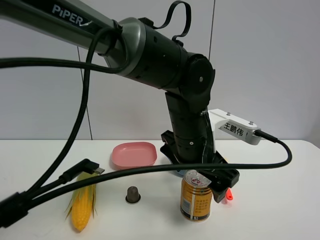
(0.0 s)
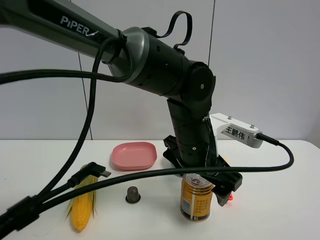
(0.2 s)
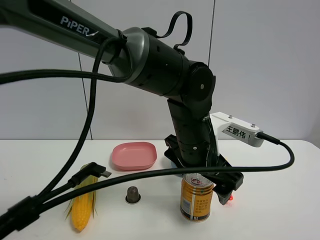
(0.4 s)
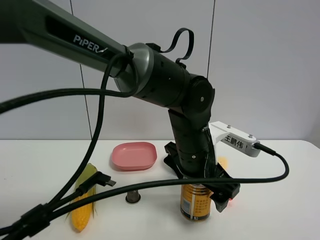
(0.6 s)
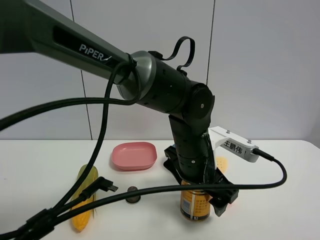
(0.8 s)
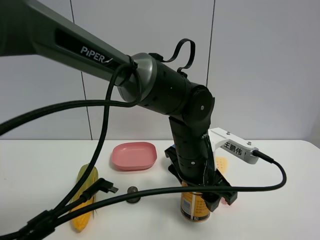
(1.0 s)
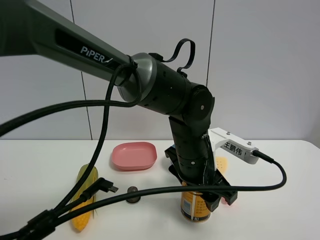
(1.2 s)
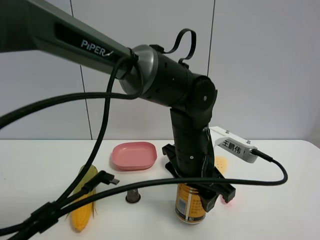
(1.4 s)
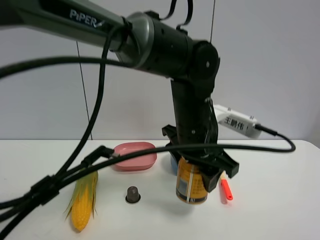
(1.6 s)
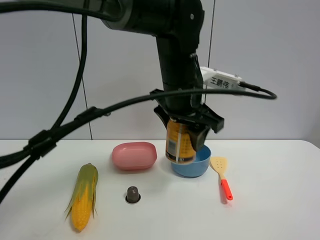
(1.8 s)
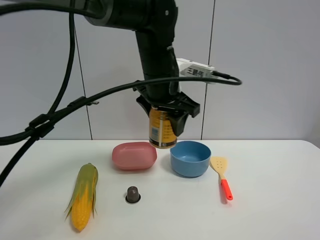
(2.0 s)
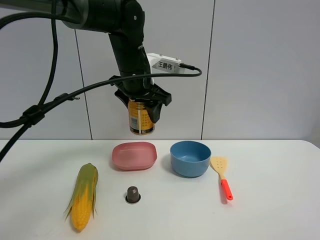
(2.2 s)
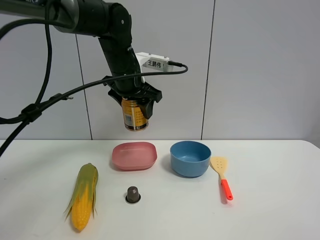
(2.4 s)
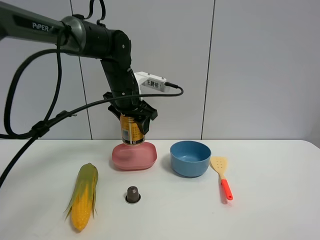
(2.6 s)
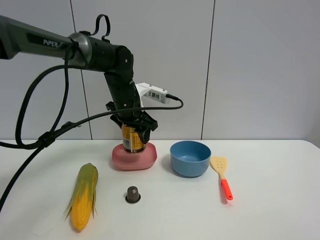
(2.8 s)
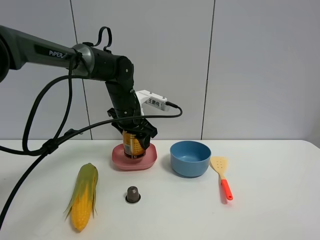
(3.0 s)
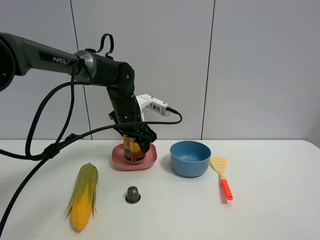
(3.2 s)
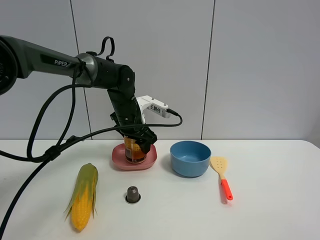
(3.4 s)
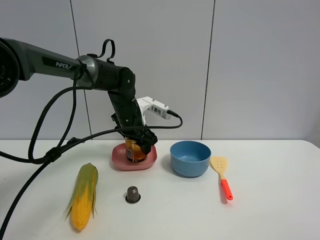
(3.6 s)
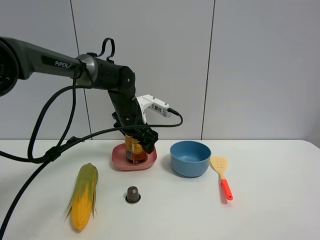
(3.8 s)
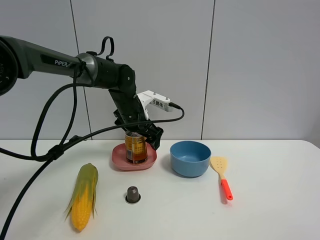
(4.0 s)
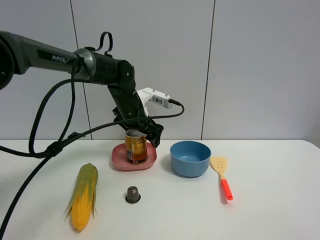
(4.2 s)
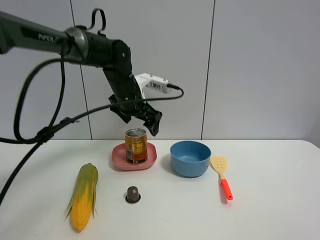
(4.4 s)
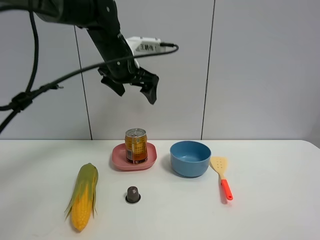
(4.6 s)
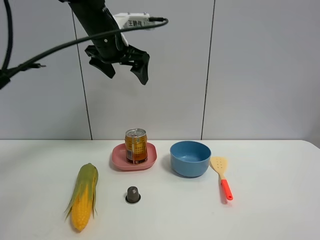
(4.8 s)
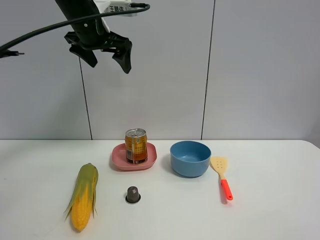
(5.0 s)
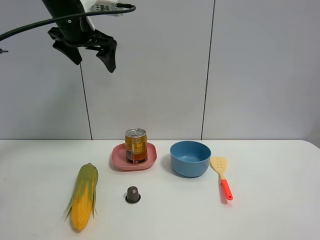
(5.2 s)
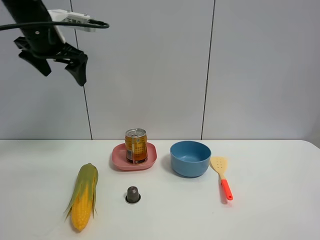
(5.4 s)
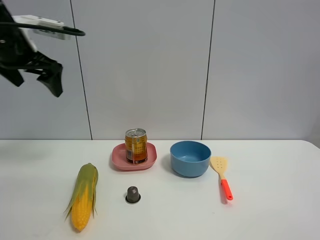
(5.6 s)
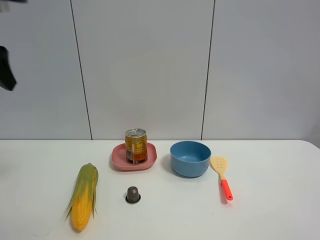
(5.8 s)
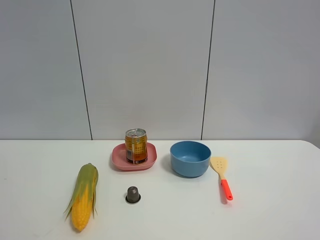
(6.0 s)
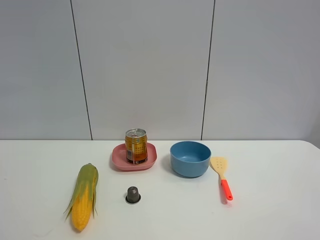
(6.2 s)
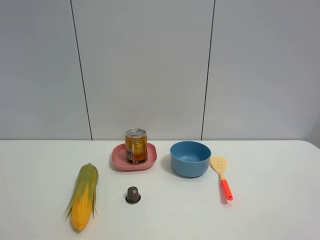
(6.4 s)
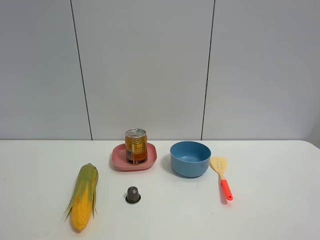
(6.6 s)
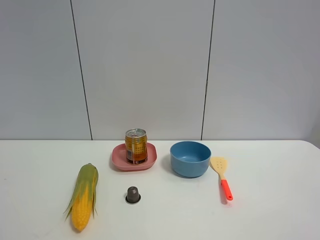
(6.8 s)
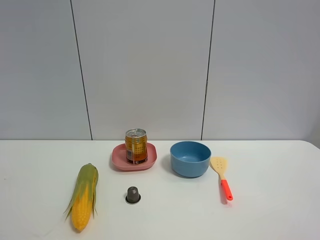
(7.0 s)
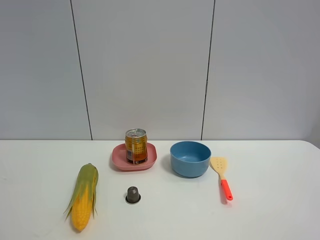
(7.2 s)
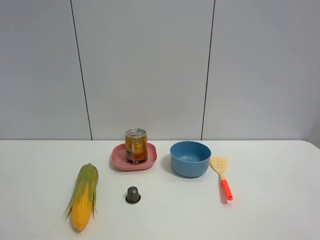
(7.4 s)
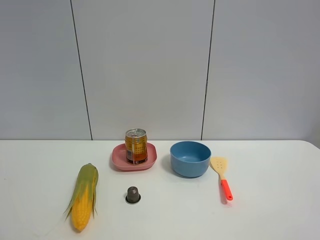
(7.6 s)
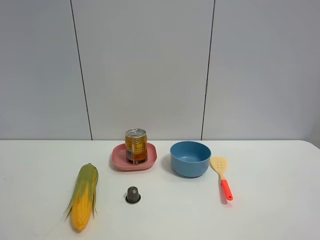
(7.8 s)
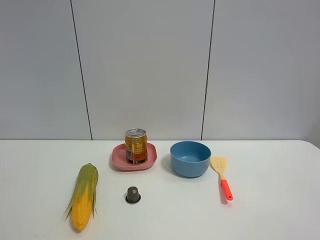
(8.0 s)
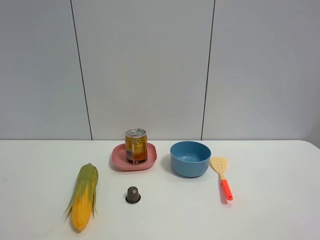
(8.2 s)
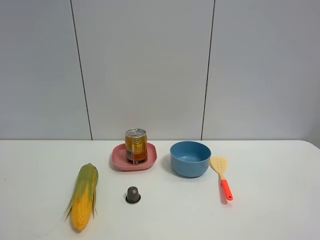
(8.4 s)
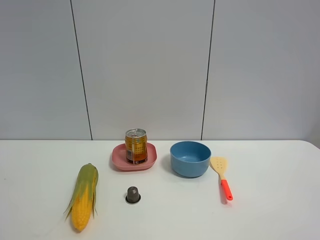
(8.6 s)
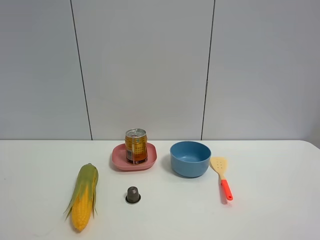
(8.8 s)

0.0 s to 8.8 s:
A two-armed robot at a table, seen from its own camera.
Task of the whole recording: the gripper move the object.
Step, 1.2 to 3.8 s: Place the red bull on the table with the left gripper.
0.0 to 1.4 s: The left gripper closes.
1.4 to 3.0 s: The left gripper is displaced forward and to the left by some 20 cm.
3.0 to 4.4 s: The left gripper opens up.
4.4 to 5.8 s: The left gripper shifts approximately 35 cm to the left, backward and upward.
5.8 to 7.4 s: The left gripper goes approximately 30 cm backward.
7.4 to 8.8 s: Both grippers stay put.

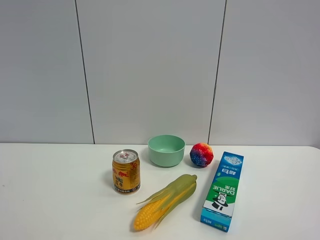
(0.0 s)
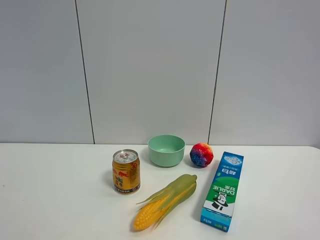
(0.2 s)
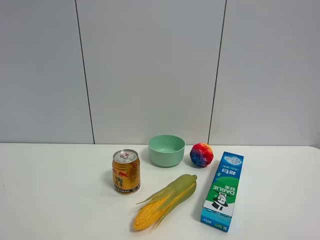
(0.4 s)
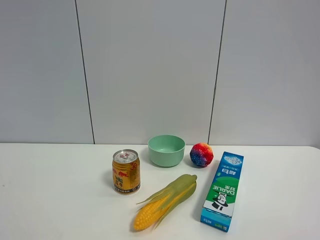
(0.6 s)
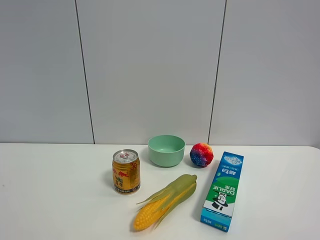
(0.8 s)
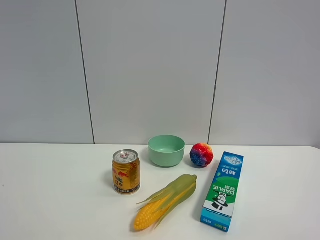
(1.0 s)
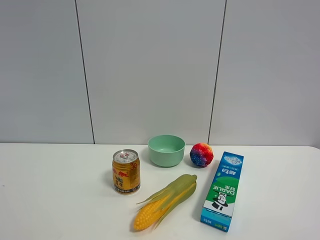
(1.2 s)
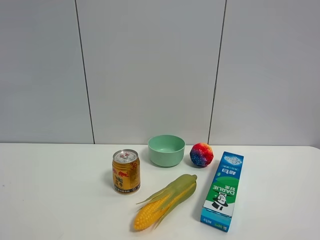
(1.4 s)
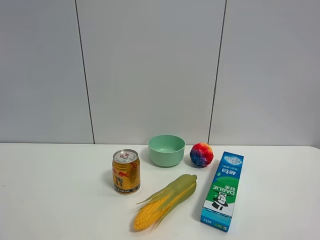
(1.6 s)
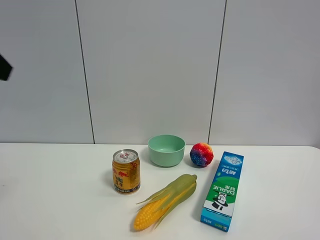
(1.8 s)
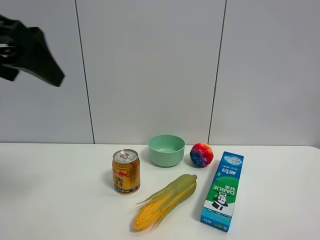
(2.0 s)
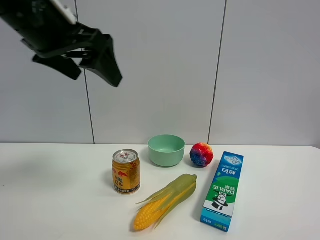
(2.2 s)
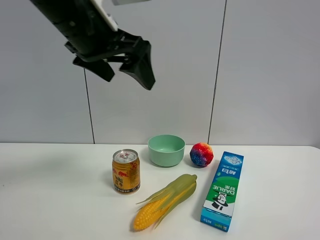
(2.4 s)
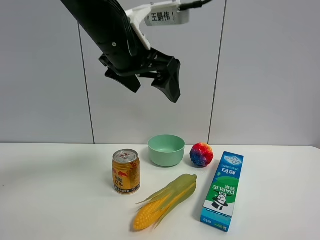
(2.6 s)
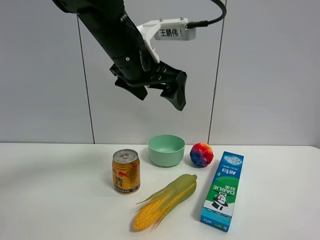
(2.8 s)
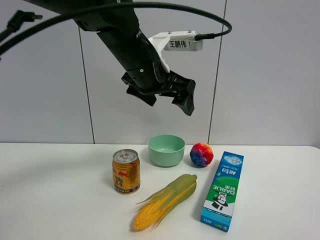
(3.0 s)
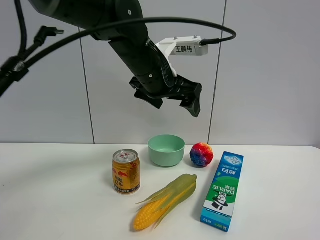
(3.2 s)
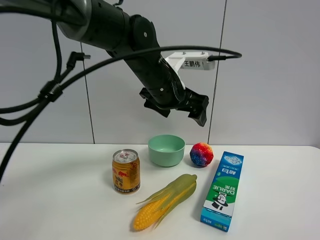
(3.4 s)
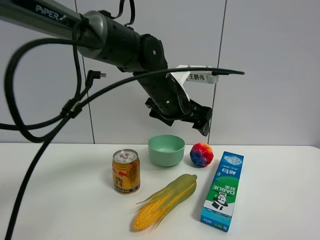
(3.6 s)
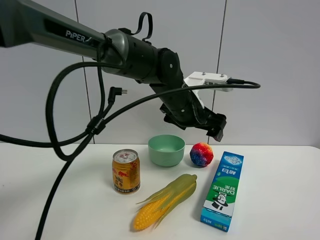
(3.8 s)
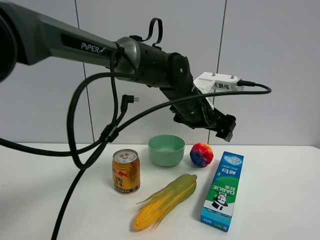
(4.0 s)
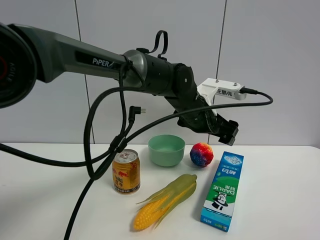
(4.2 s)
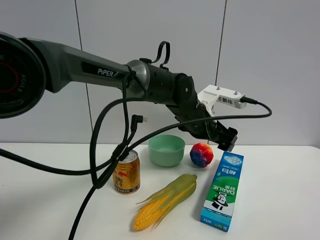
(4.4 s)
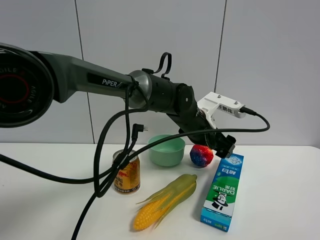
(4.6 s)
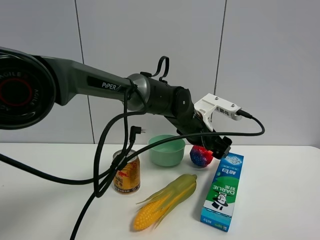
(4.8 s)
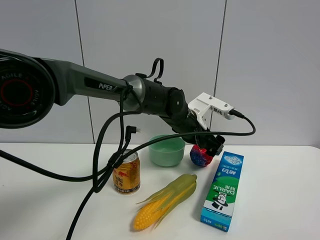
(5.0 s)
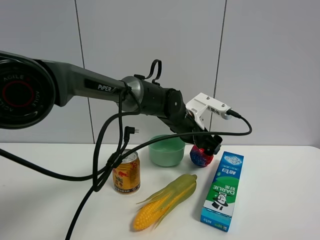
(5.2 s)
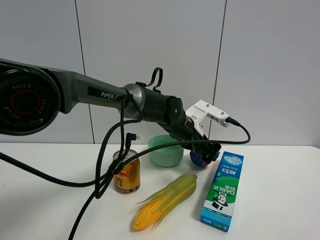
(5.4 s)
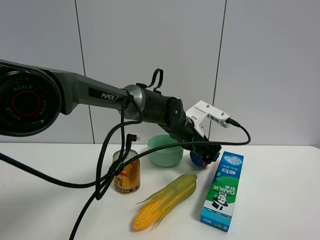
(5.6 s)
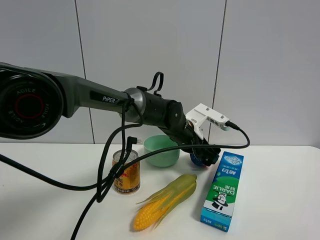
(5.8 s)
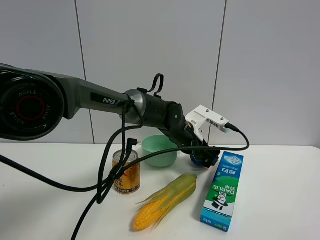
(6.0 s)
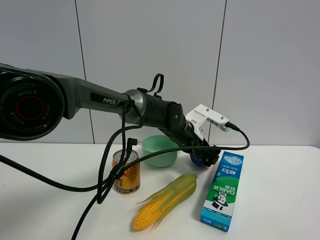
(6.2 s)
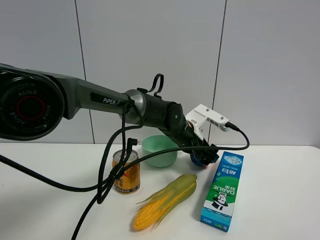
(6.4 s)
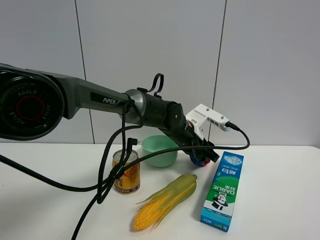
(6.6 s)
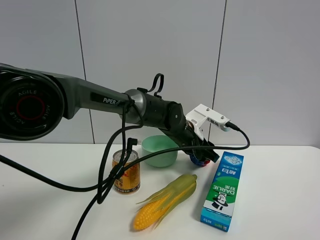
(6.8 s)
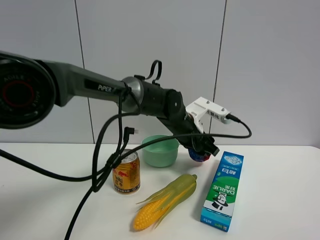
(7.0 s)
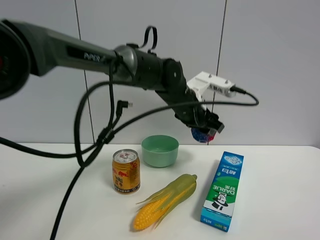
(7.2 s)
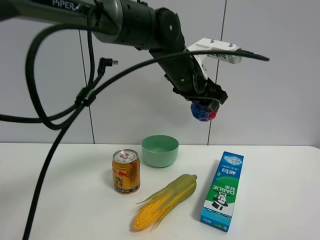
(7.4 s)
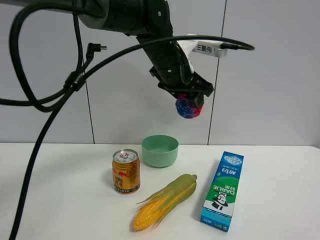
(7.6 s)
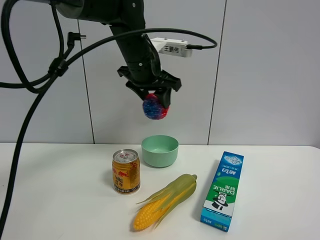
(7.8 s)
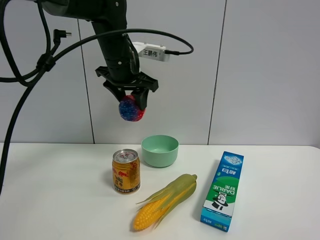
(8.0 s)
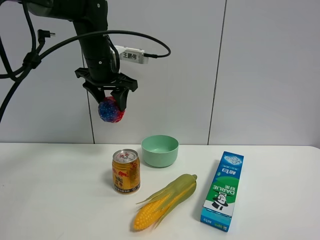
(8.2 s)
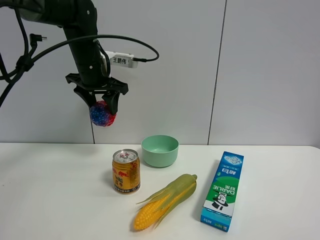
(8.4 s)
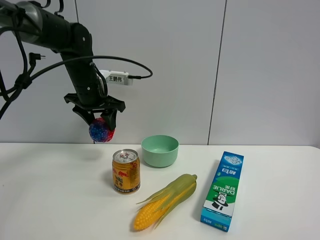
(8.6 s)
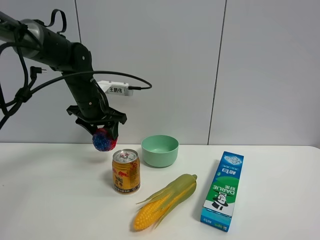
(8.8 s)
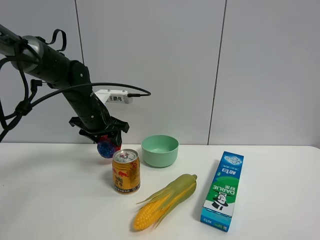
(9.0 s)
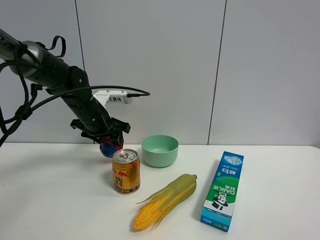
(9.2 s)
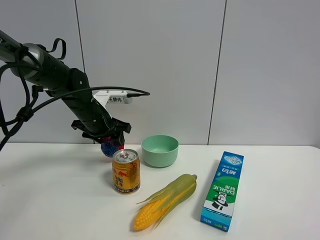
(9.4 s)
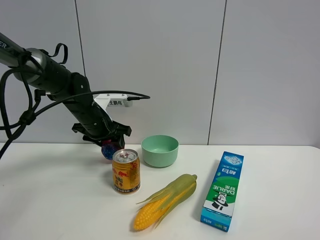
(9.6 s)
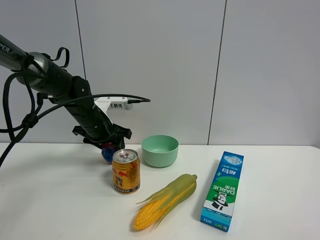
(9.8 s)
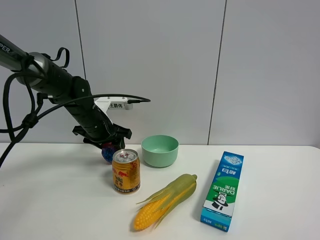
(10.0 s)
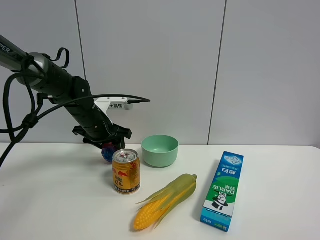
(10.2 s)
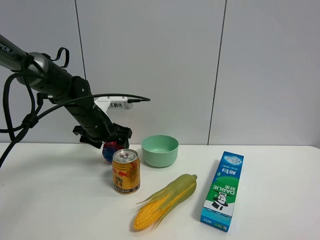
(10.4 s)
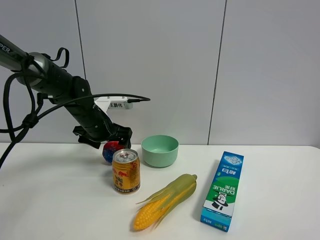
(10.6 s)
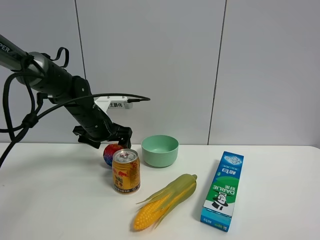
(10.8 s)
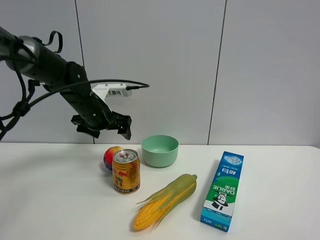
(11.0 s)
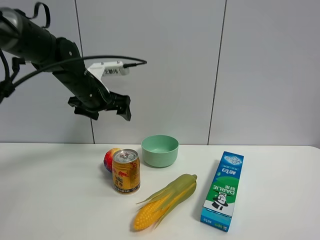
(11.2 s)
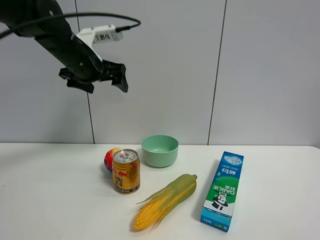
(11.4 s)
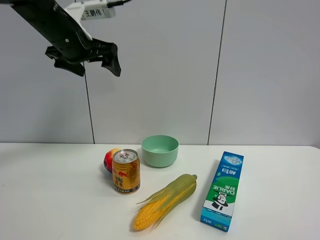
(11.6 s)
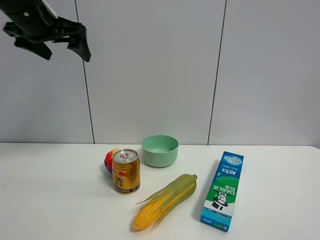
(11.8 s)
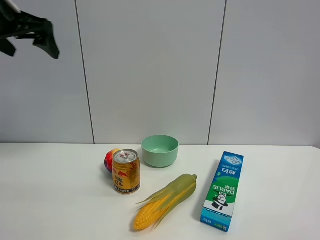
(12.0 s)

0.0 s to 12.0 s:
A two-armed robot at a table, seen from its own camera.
Task of the whole recording: the gripper move the object.
Step, 0.0 to 6.4 s: Grasp the colorful ball with the left gripper.
Step, 6.6 to 10.4 s: Place the colorful ball on the table with the left gripper.
1.6 to 3.0 s: The left gripper is displaced to the right and forward by approximately 35 cm.
3.0 to 4.4 s: The left gripper heads downward, to the right and forward, covering about 15 cm.
4.4 to 6.0 s: The left gripper goes some 5 cm downward.
6.0 to 7.6 s: The left gripper goes some 15 cm upward, and closes up.
7.6 to 9.0 s: The left gripper travels to the left and downward by some 20 cm.
9.0 to 10.4 s: The left gripper opens its fingers.
10.4 to 12.0 s: The left gripper shifts roughly 30 cm upward, to the left and backward.

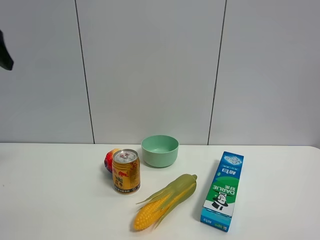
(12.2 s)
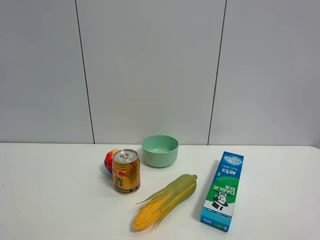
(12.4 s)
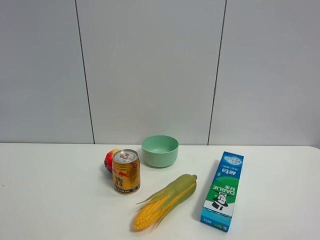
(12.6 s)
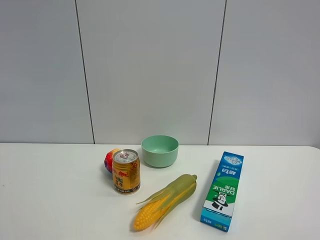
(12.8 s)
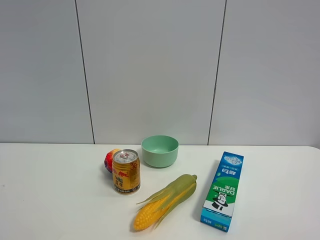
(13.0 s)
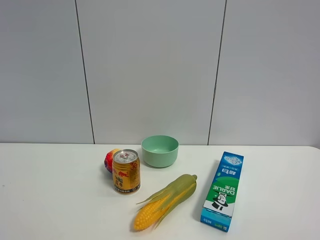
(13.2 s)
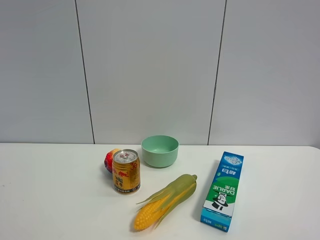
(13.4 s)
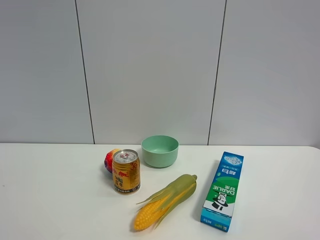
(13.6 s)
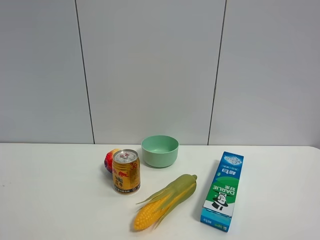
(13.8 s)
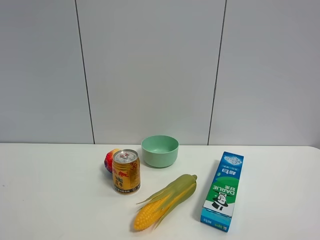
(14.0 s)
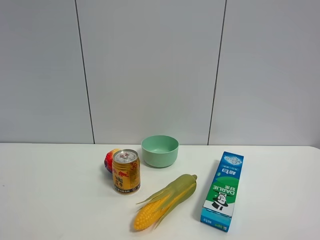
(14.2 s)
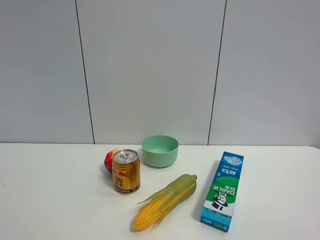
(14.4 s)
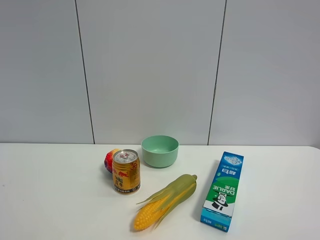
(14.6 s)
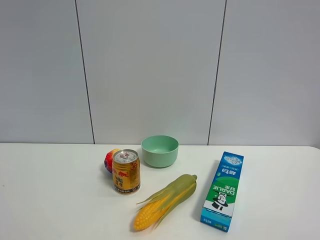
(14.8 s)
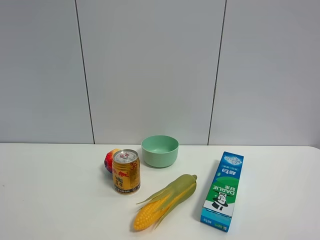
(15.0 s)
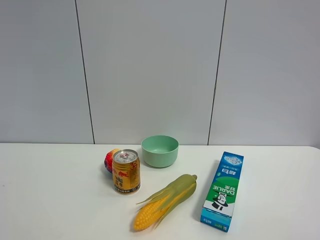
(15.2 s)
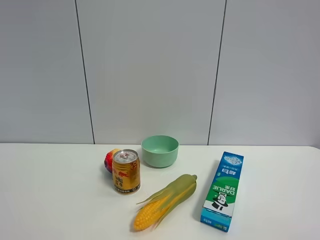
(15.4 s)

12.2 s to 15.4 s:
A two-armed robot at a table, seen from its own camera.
Task of the whole recording: the gripper move the object.
13.8 to 15.4 s: The two grippers keep their place.
